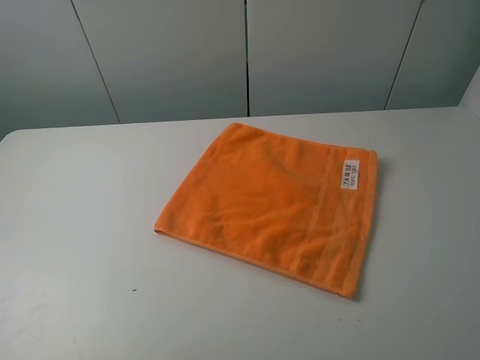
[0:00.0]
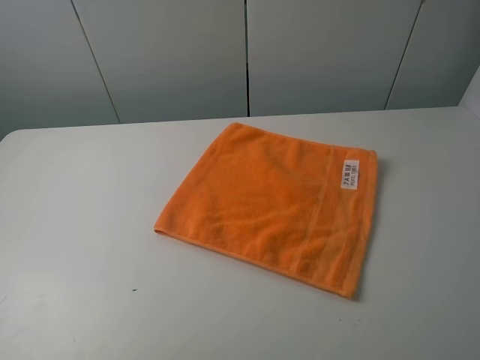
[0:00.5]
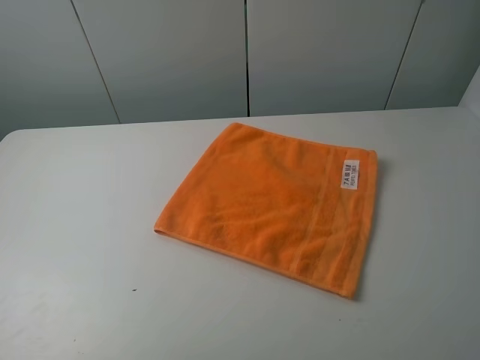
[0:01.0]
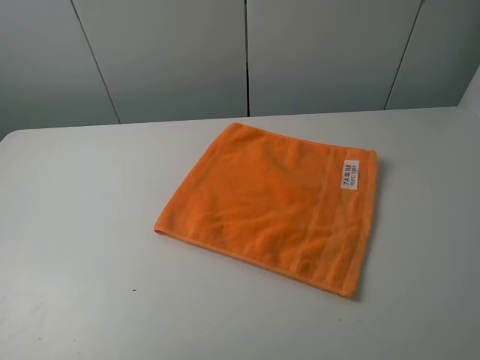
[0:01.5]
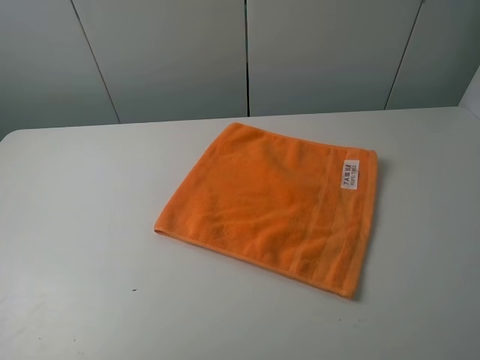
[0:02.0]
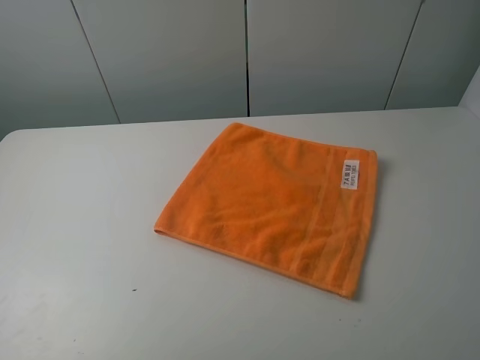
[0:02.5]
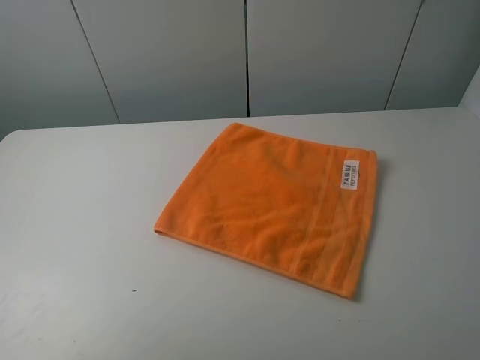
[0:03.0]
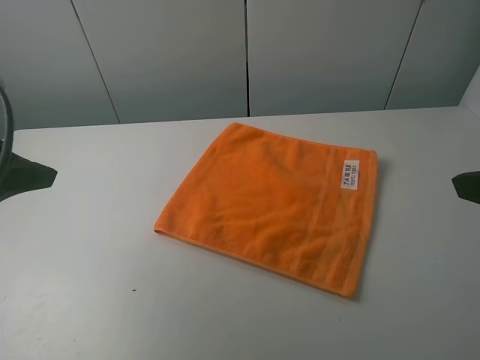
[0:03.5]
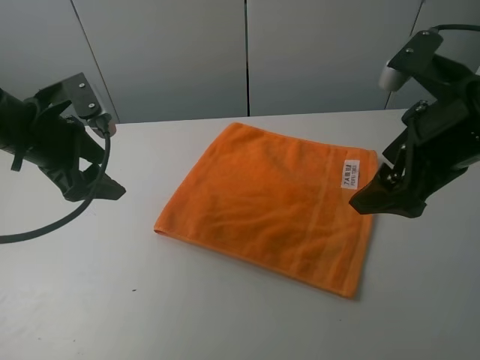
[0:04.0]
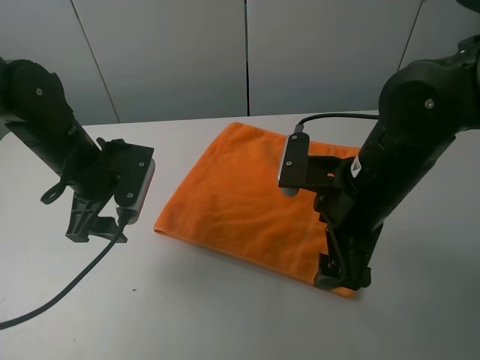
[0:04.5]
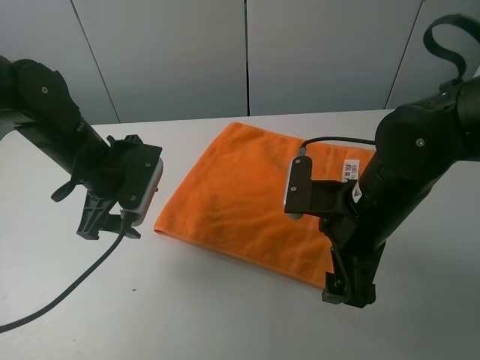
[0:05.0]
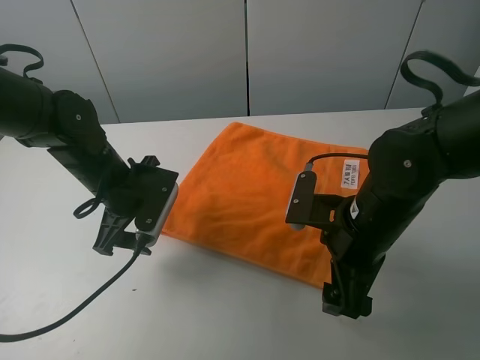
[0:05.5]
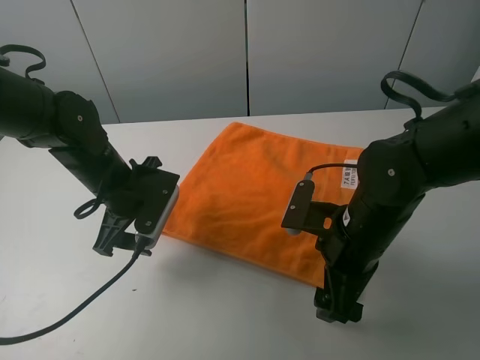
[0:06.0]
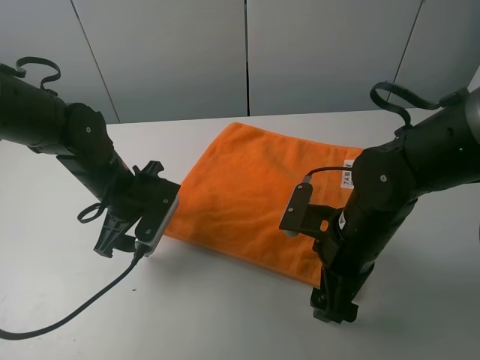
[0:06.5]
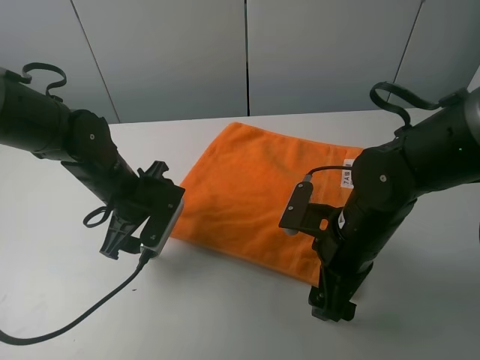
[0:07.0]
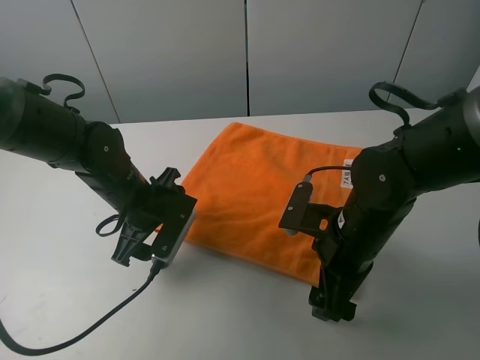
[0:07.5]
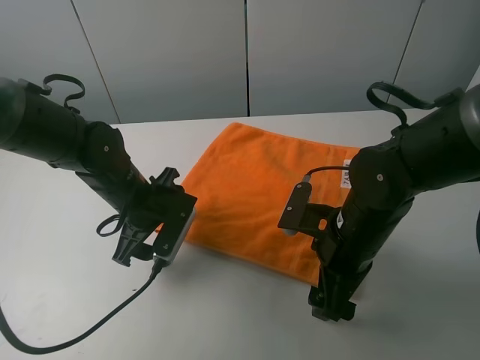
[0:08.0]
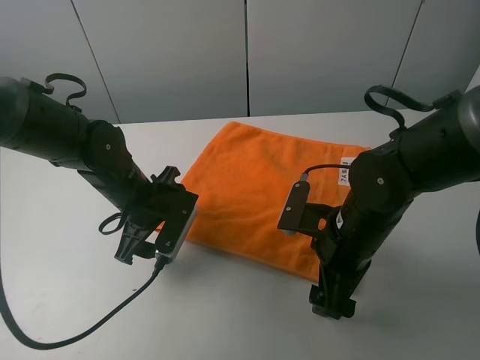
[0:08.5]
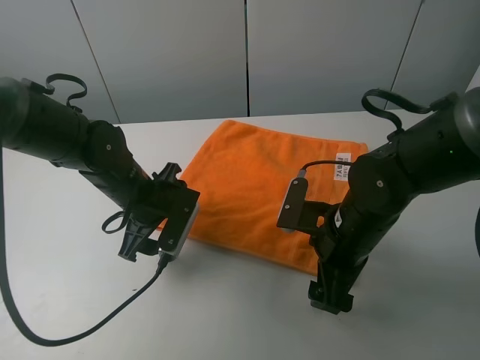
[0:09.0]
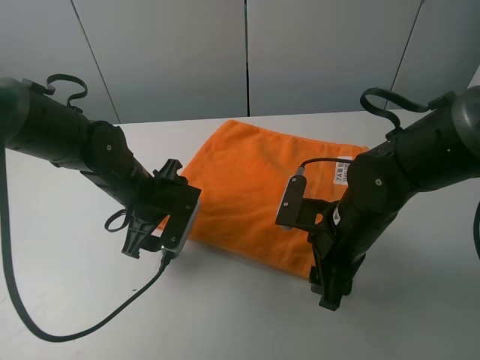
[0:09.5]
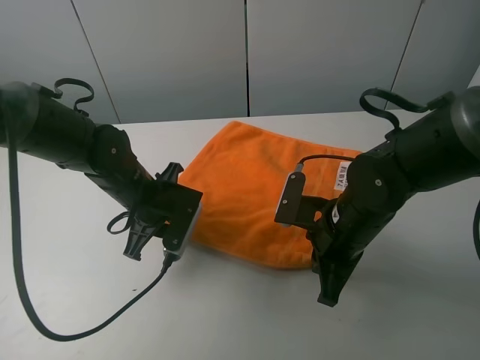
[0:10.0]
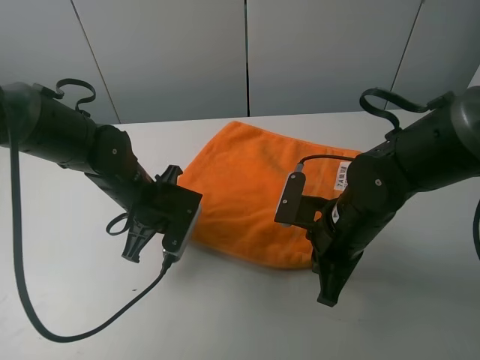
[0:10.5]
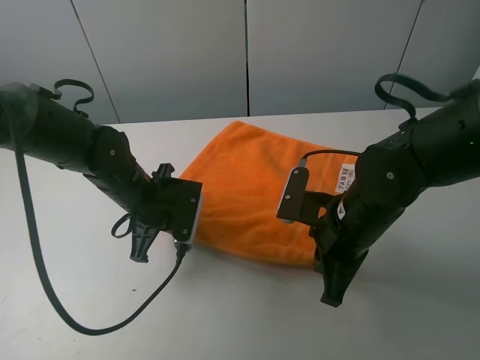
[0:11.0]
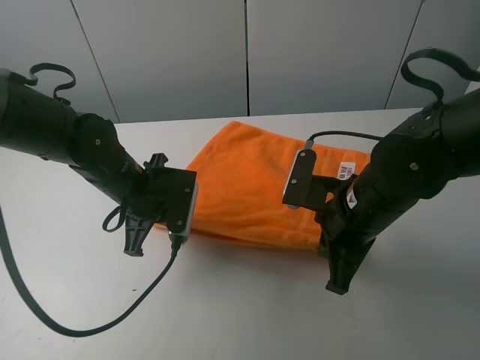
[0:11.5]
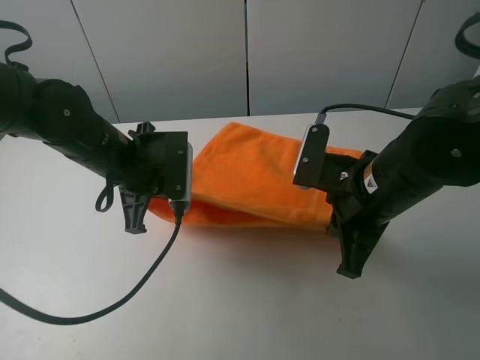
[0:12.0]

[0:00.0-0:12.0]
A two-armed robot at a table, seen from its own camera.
Task of the whole recording: fold the towels on the table.
Step, 0:00.0 to 0:10.0: Grasp the orange towel with the right gripper.
0:02.0 to 0:04.0: The left gripper is displaced forward by about 30 cm. Meanwhile the right gripper goes about 25 cm forward and to the left.
0:04.0 to 0:06.0: The right gripper shifts roughly 15 cm downward and to the left; the left gripper moves downward and to the right, approximately 10 cm.
0:06.0 to 0:08.0: The grippers stay close to where they were, moving slightly.
0:08.0 to 0:10.0: The right gripper closes its fingers, while the left gripper closes up.
0:10.0 to 0:12.0: The two grippers go about 10 cm upward.

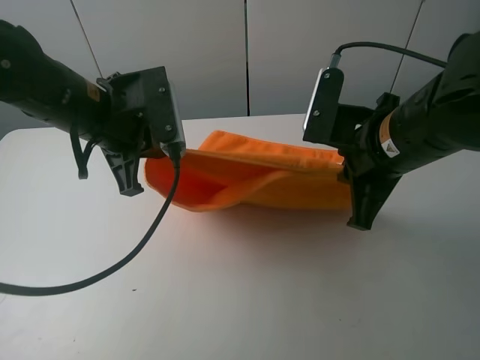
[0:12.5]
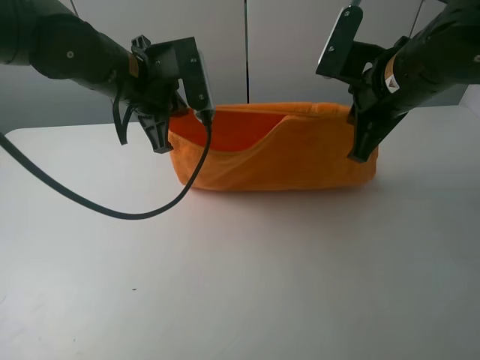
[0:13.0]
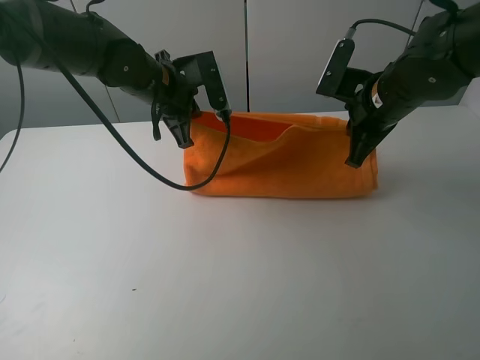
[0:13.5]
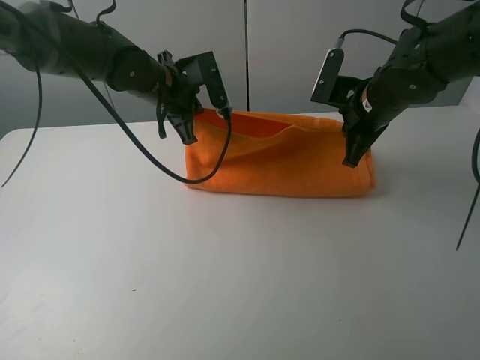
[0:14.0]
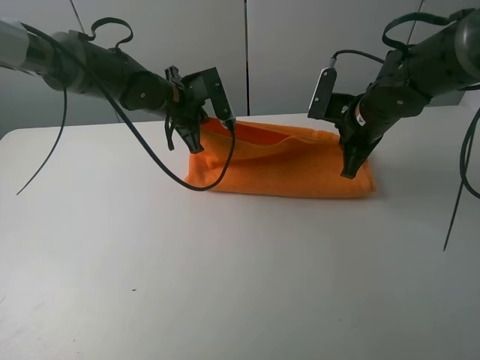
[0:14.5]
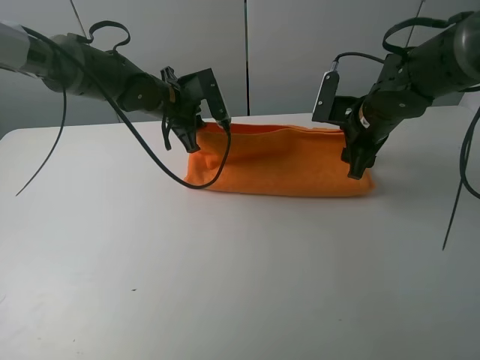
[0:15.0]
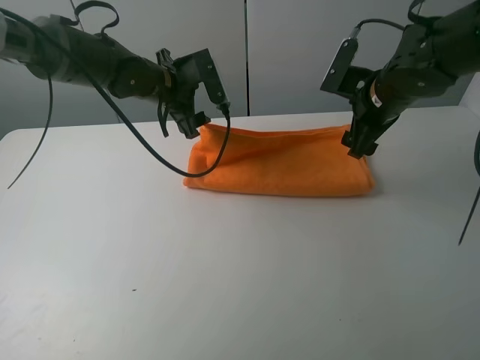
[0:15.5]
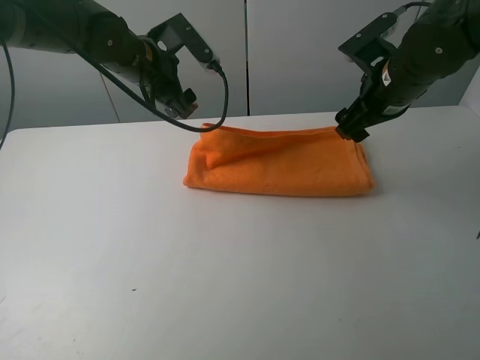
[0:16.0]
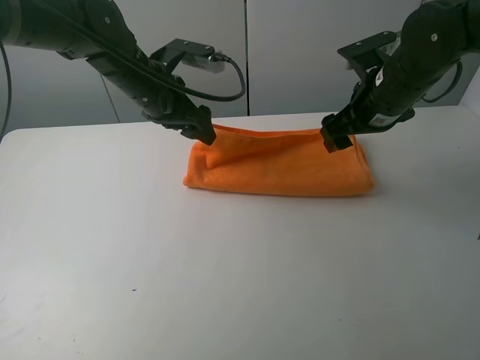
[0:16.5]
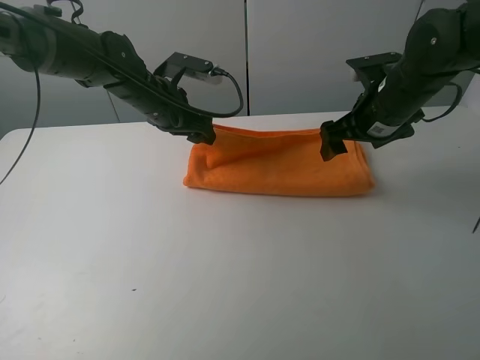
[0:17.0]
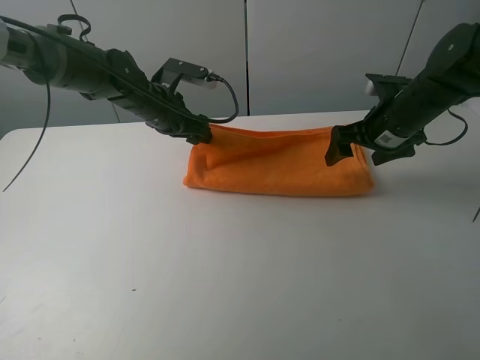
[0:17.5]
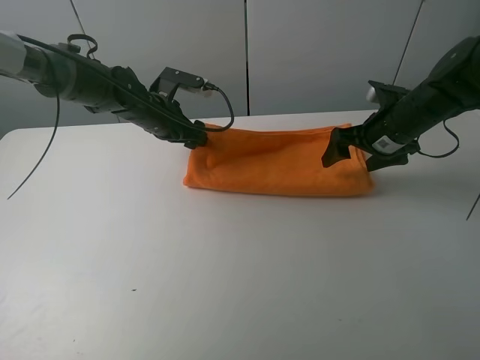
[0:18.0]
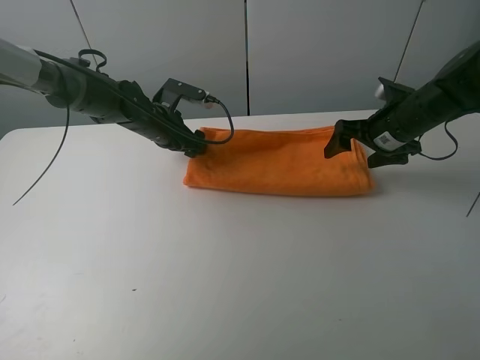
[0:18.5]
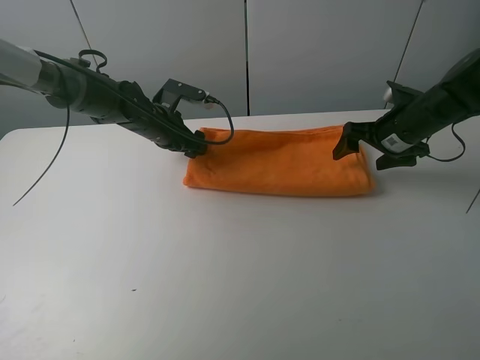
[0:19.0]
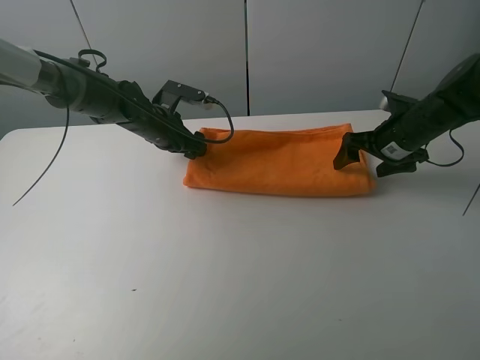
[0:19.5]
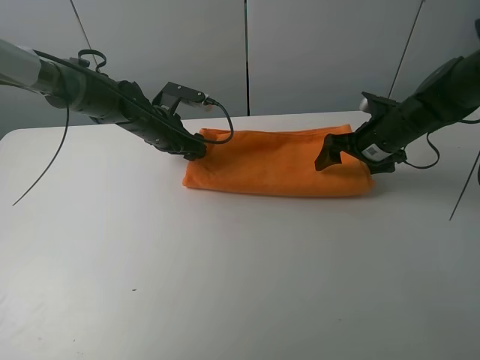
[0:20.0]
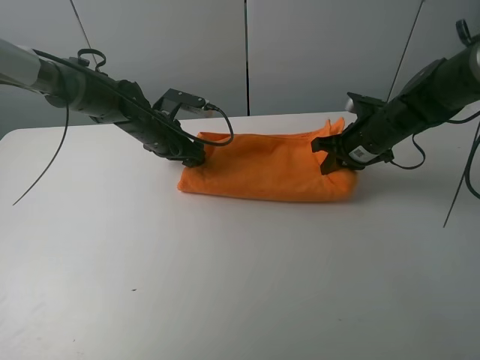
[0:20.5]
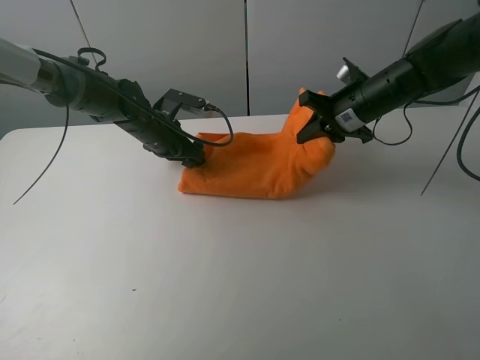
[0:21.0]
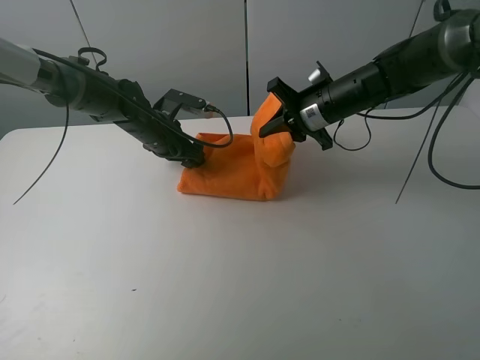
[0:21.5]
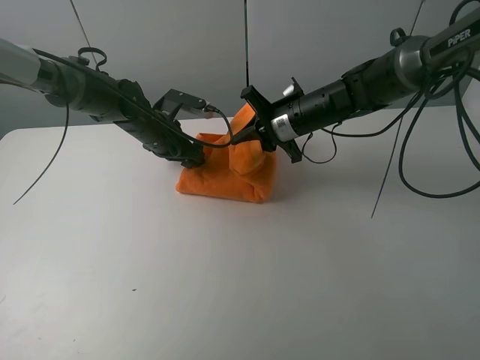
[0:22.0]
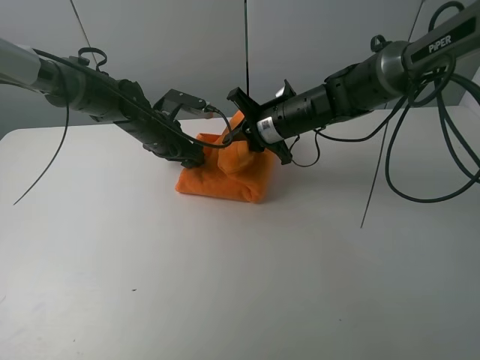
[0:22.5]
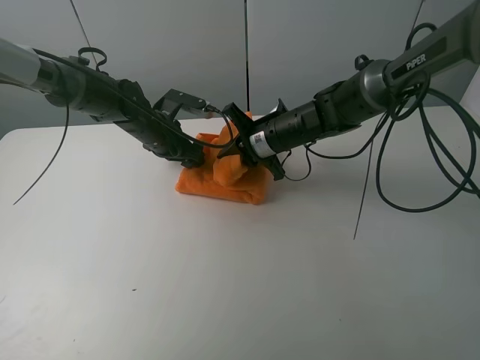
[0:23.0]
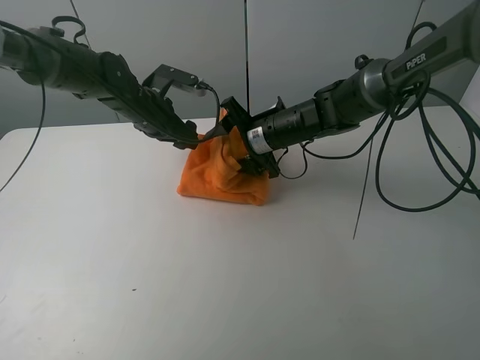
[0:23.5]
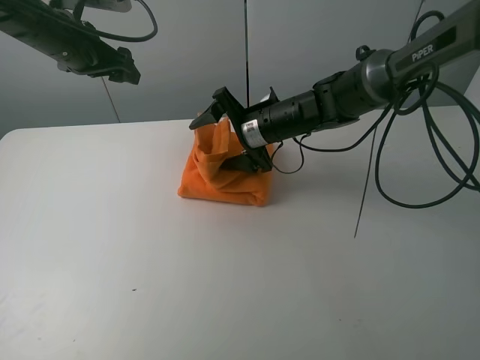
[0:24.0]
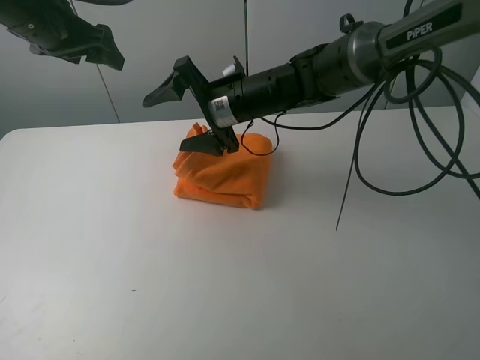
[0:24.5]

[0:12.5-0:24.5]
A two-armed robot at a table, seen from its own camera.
Task of the whole recording: fold the towels on the table.
Step, 0:12.5 to 0:15.5: Fold the orange towel upwards with the right gripper.
Step, 0:16.0 to 0:18.0: Press on the orange towel with the left gripper.
Step, 0:18.5 to 0:24.0: Fold the orange towel from right to left with right gripper.
0:12.5 to 0:14.5: Both grippers travel together forward and downward, roughly 15 cm.
0:14.5 to 0:16.5: Both grippers move upward, some 5 cm. The right gripper opens up. Meanwhile the left gripper opens up.
0:16.5 to 0:18.5: The left gripper heads downward and forward, covering approximately 10 cm; the right gripper shifts about 10 cm downward and to the right.
0:18.5 to 0:20.5: The right gripper closes its fingers.
0:20.5 to 0:22.5: The right gripper goes about 15 cm to the left.
0:22.5 to 0:24.5: The left gripper travels upward and to the left by approximately 25 cm, while the right gripper moves to the left and upward, about 10 cm, and opens its fingers.

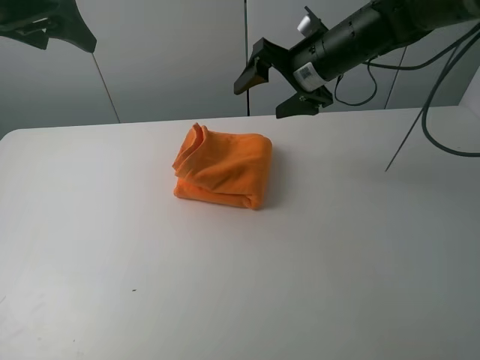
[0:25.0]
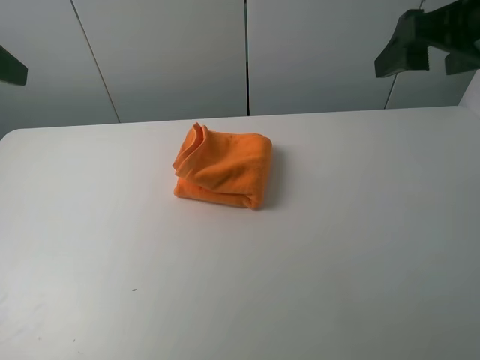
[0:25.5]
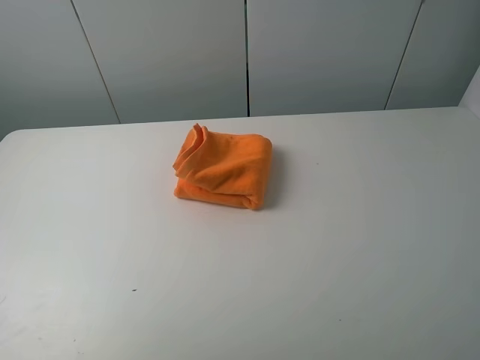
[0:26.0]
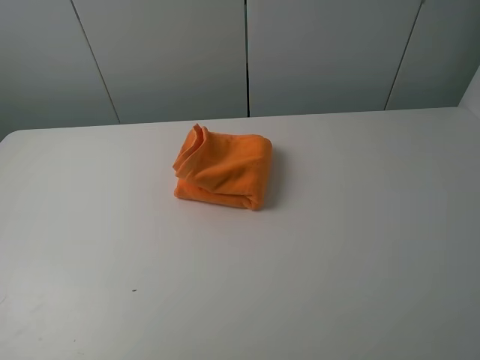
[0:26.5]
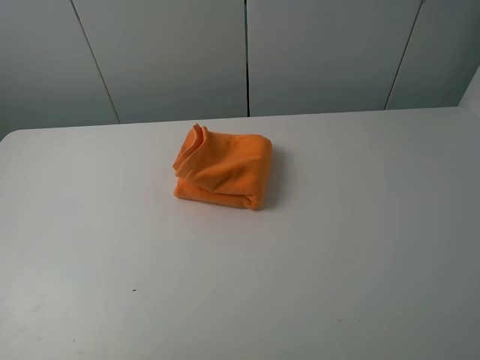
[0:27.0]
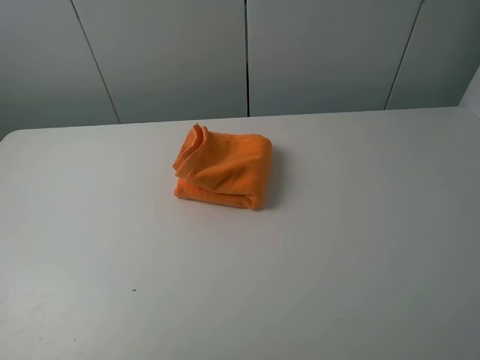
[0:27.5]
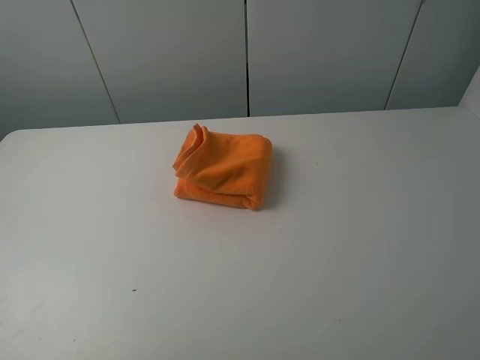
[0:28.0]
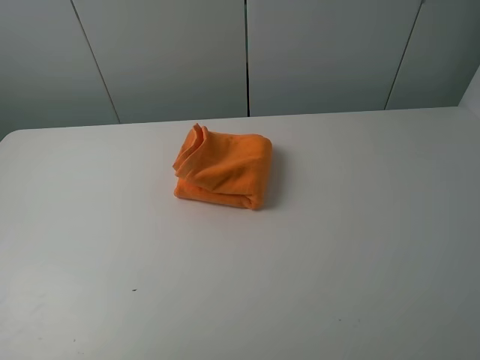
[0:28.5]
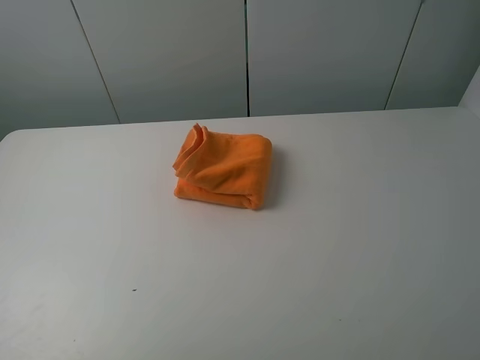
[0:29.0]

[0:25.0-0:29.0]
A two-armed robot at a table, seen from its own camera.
Task of the whole recording: fold the towels on the table.
0:25.0 to 0:27.0: The left gripper is displaced backward by some 35 cm, while the right gripper travels backward and to the right by roughly 40 cm.
